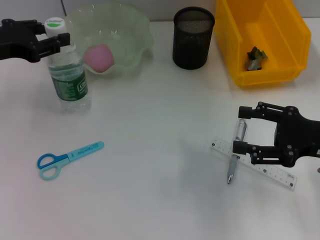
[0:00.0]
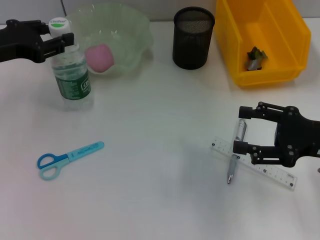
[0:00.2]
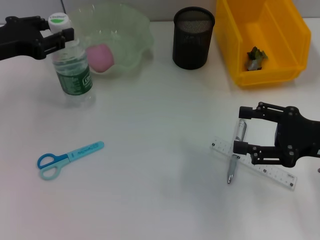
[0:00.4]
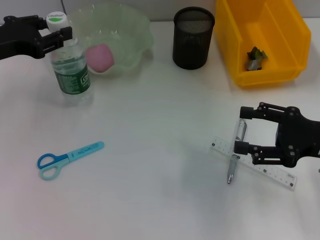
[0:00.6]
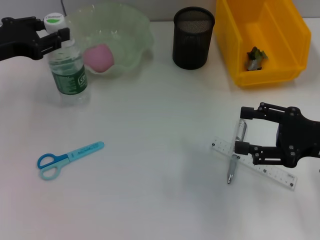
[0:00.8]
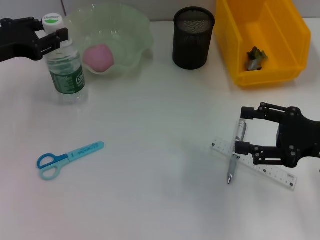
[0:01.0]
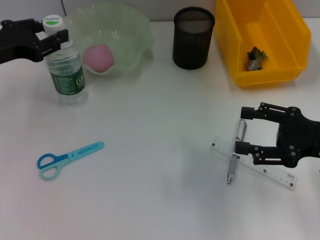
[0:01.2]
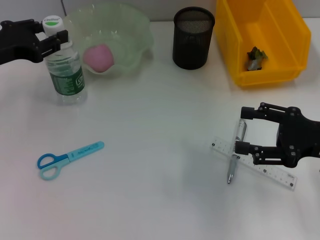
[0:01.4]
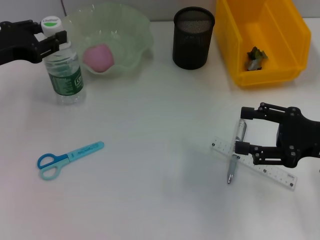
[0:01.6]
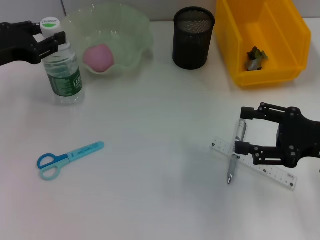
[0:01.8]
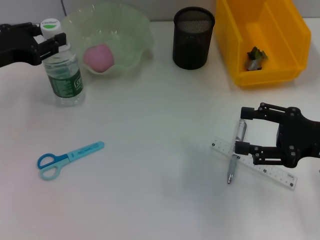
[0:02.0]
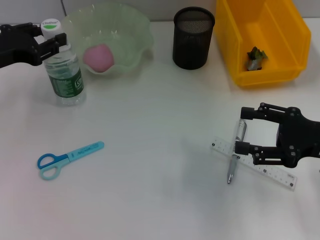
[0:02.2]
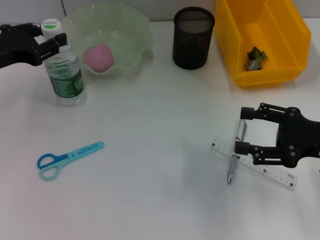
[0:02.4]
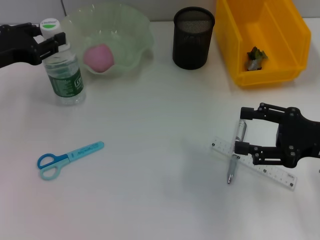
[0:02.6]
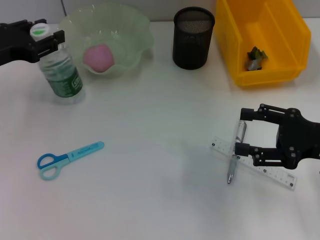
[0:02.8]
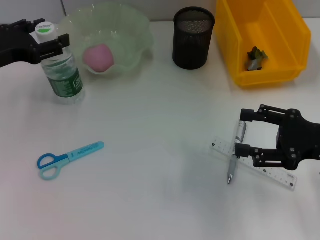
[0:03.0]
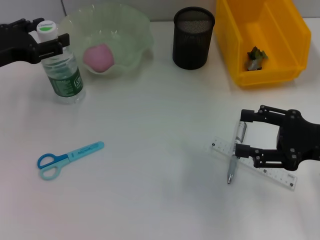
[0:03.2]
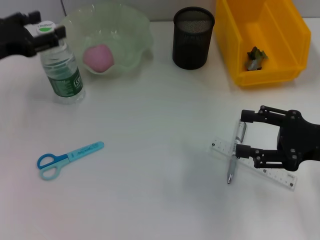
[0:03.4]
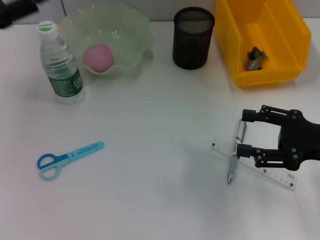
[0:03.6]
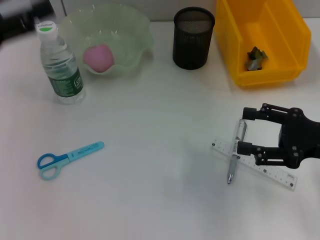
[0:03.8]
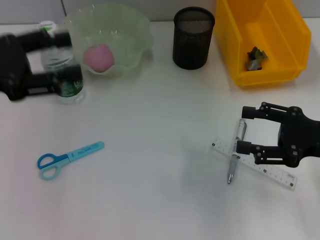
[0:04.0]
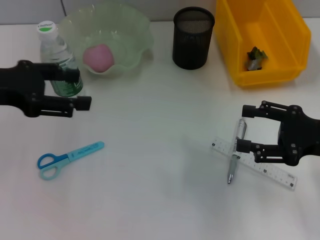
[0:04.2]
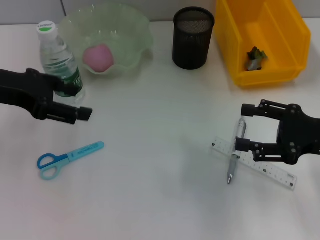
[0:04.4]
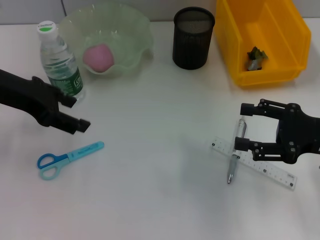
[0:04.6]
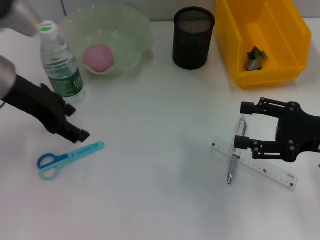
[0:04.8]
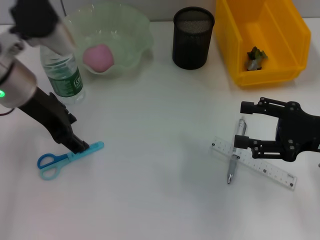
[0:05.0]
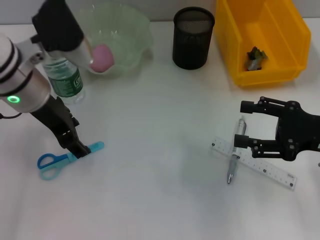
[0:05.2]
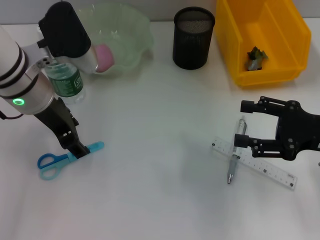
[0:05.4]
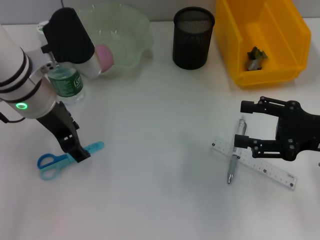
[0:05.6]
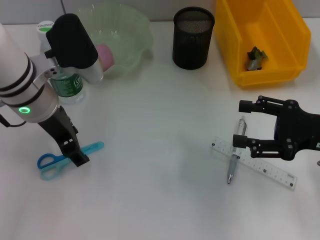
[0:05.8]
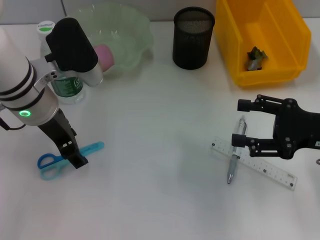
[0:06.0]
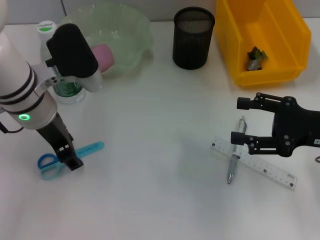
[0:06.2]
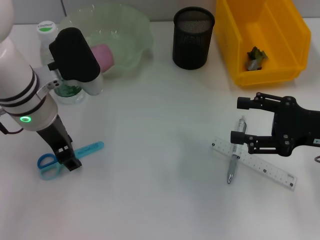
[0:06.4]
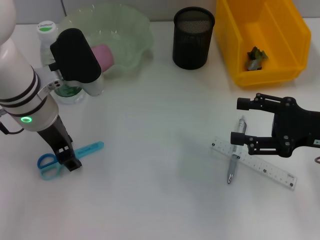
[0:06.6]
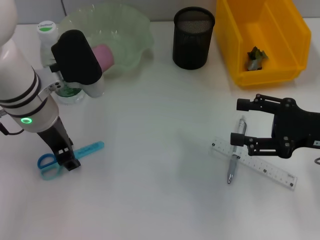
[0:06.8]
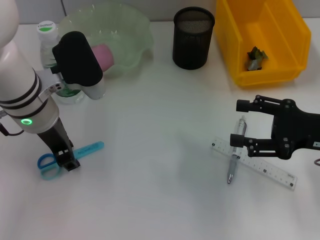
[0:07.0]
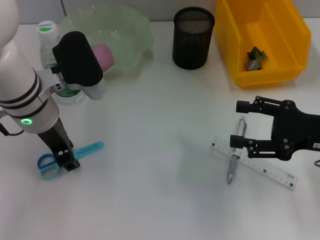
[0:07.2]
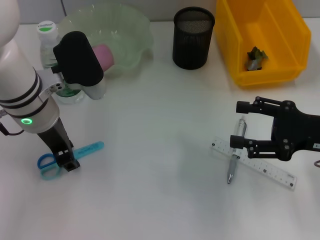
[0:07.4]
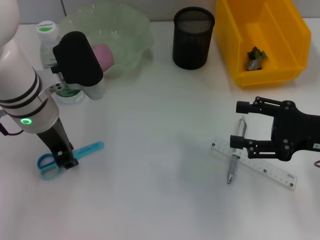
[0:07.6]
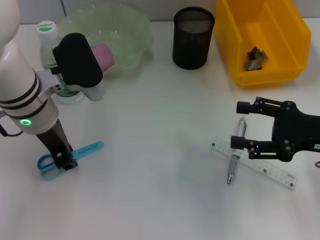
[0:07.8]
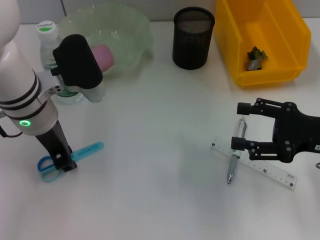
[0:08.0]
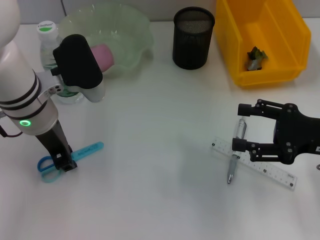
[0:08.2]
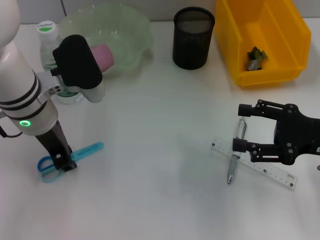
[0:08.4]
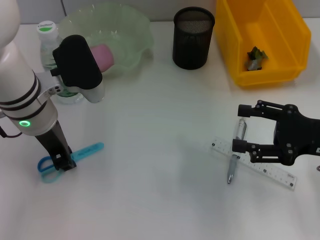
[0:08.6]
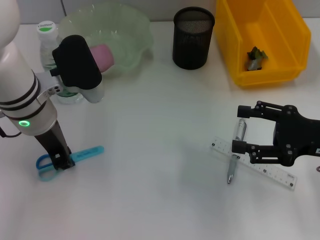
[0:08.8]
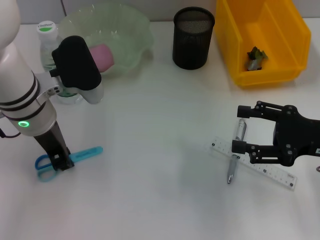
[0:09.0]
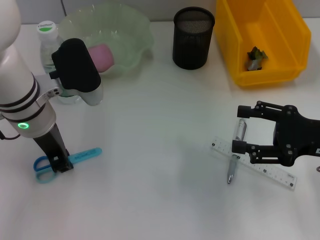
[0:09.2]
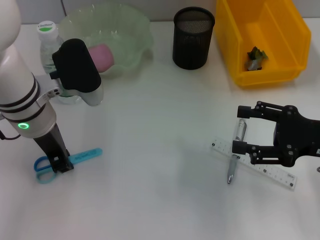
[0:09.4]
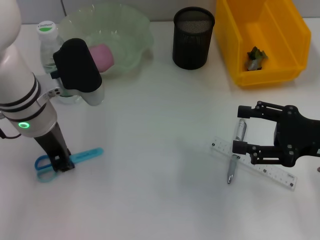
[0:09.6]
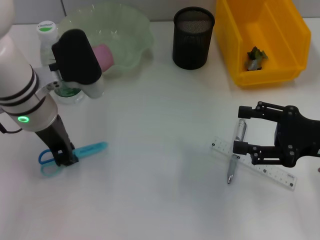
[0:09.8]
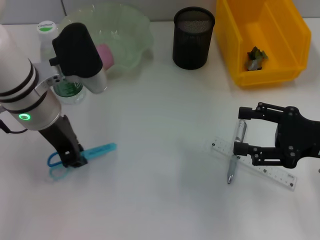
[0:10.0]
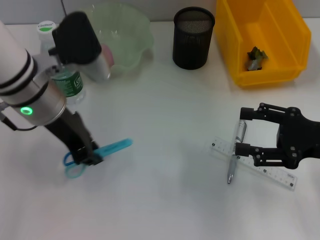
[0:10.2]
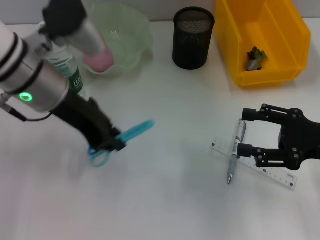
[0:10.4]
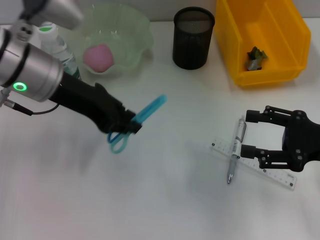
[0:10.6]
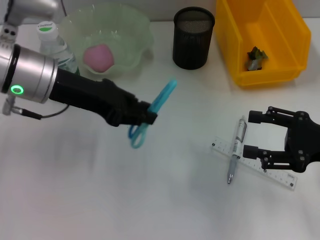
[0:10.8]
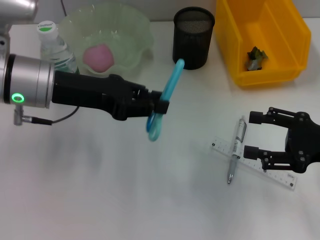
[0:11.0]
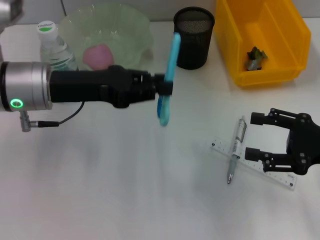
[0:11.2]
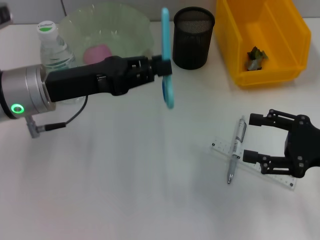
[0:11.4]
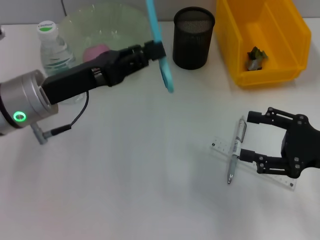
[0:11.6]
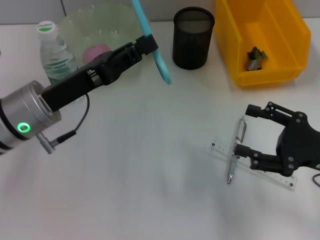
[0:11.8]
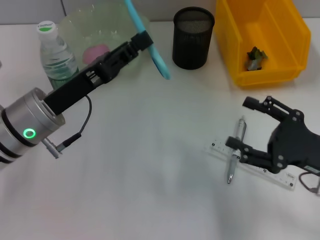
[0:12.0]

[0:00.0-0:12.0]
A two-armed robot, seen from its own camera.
Step, 0:00.0 to 0:03.4: Place the water bottle on the table with the left hand.
Step, 0:03.6 to 0:09.4: Grab the blue scissors with the left hand.
0:00.0 to 0:01.6: There are only small adjustments of the grippers.
0:01.6 to 0:03.0: Both grippers stay about where they are.
0:03.0 to 0:04.4: The left gripper is displaced upward by about 5 cm.
0:04.4 to 0:06.0: The left gripper moves to the right, some 10 cm.
0:06.0 to 0:07.6: The left gripper closes.
0:07.6 to 0:09.0: Both grippers stay about where they are.
0:09.0 to 0:10.4: The left gripper travels upward by approximately 5 cm.
0:10.4 to 0:12.0: The left gripper shifts some 10 cm downward. The right gripper moves about 5 cm.

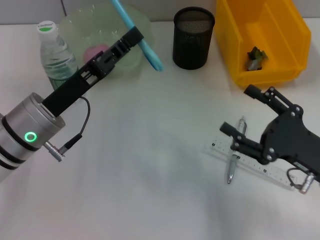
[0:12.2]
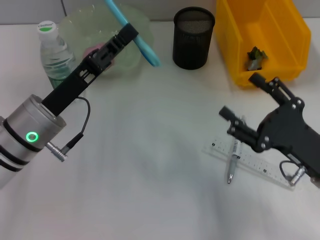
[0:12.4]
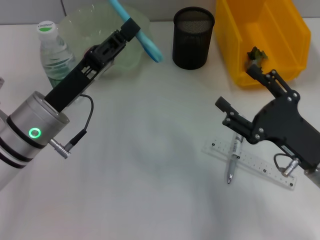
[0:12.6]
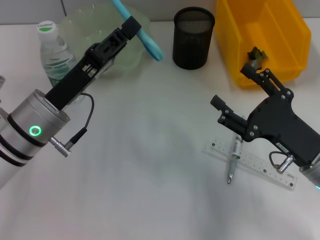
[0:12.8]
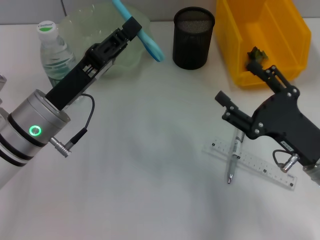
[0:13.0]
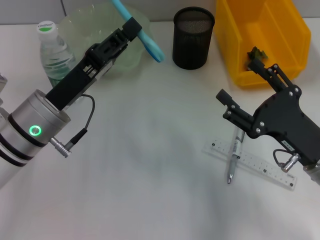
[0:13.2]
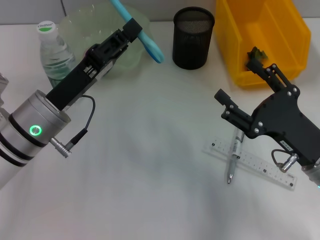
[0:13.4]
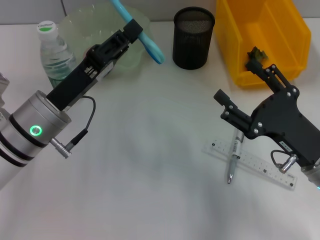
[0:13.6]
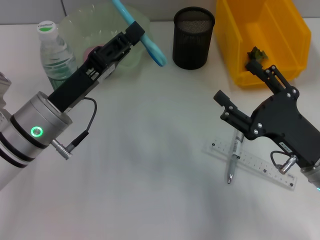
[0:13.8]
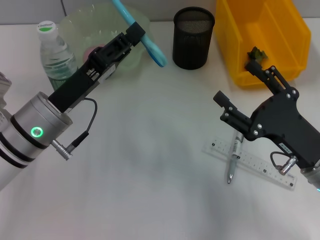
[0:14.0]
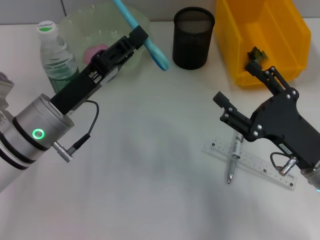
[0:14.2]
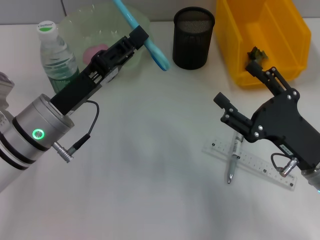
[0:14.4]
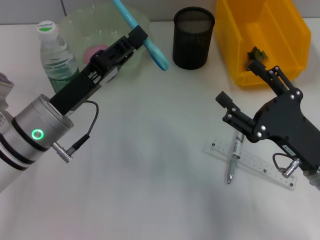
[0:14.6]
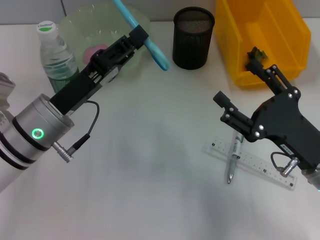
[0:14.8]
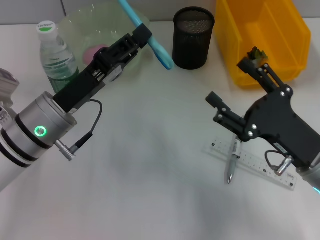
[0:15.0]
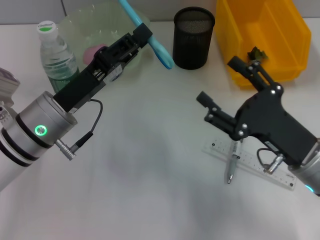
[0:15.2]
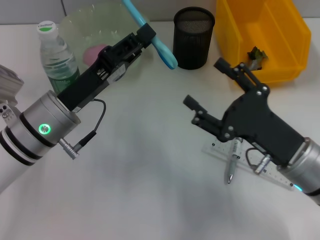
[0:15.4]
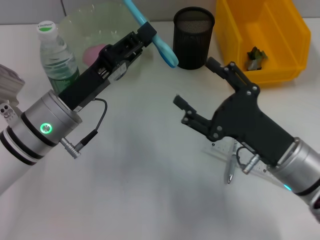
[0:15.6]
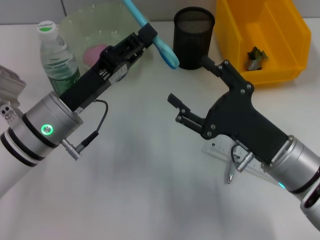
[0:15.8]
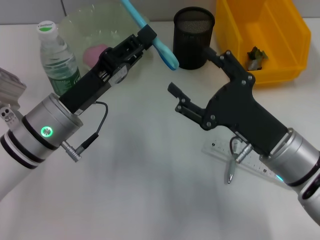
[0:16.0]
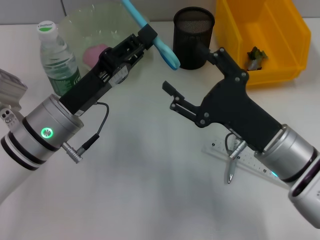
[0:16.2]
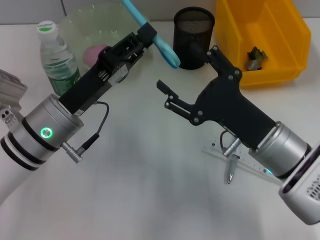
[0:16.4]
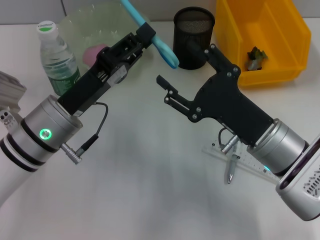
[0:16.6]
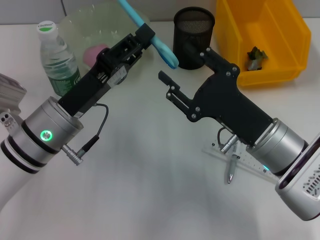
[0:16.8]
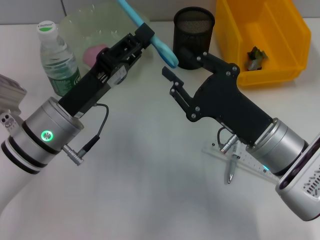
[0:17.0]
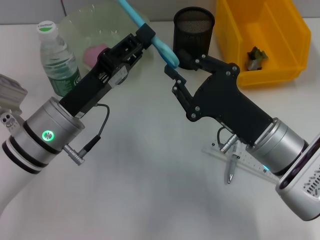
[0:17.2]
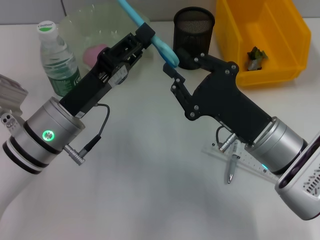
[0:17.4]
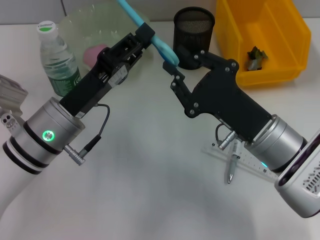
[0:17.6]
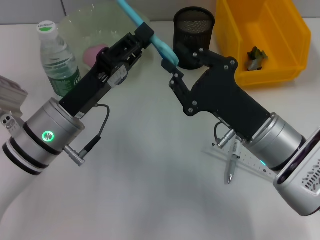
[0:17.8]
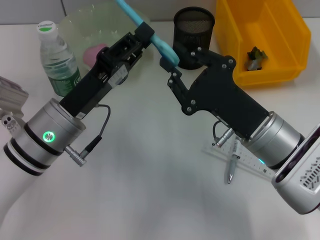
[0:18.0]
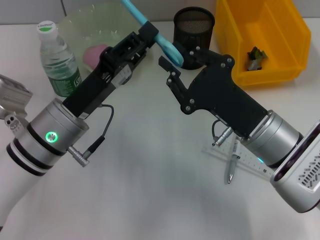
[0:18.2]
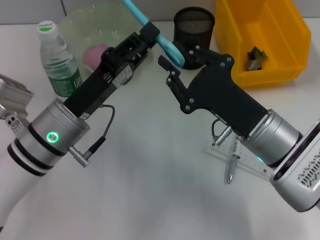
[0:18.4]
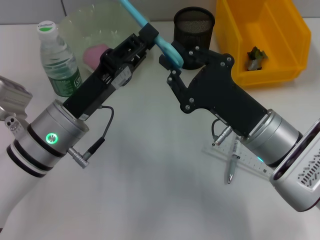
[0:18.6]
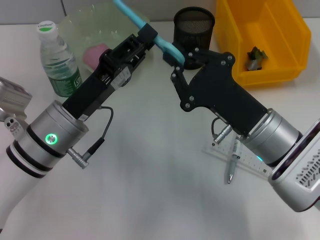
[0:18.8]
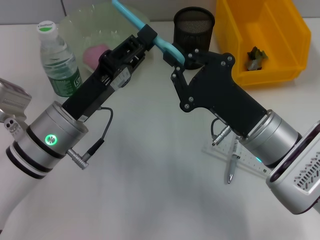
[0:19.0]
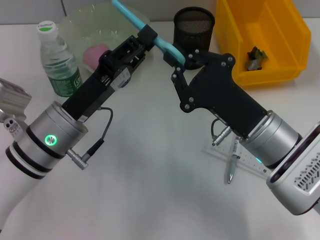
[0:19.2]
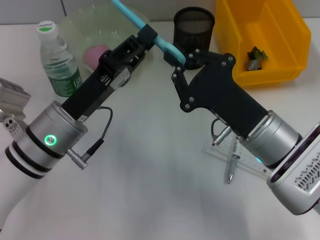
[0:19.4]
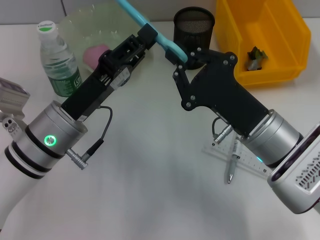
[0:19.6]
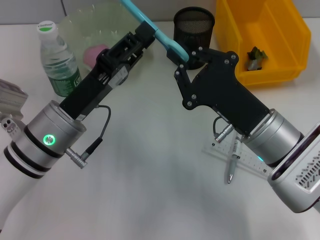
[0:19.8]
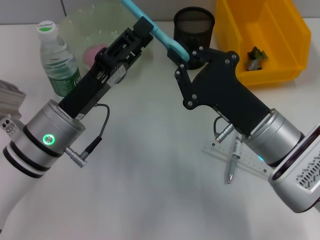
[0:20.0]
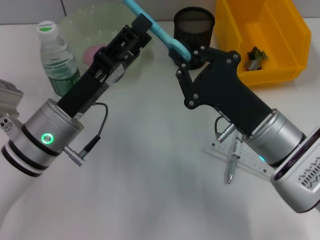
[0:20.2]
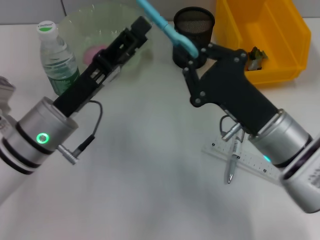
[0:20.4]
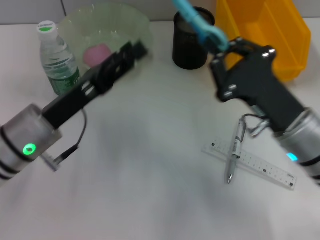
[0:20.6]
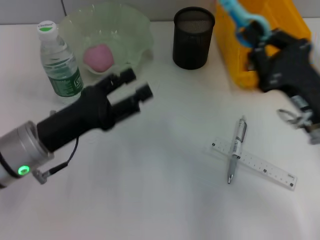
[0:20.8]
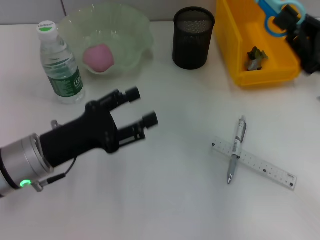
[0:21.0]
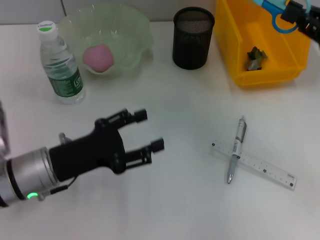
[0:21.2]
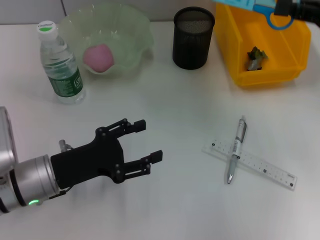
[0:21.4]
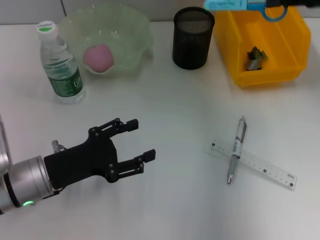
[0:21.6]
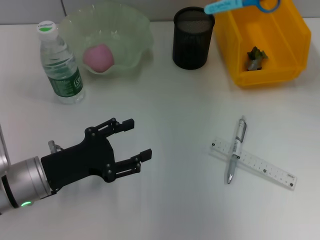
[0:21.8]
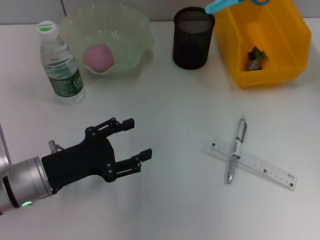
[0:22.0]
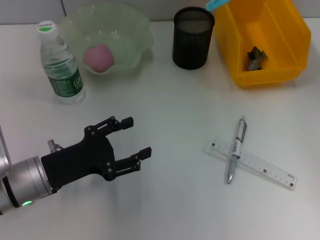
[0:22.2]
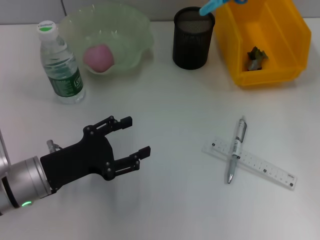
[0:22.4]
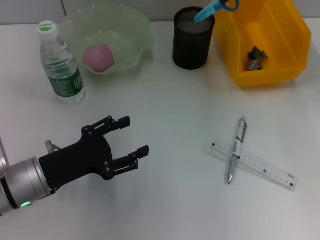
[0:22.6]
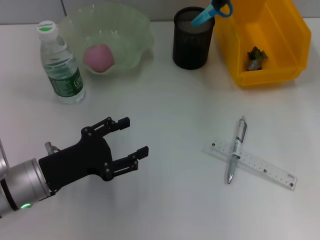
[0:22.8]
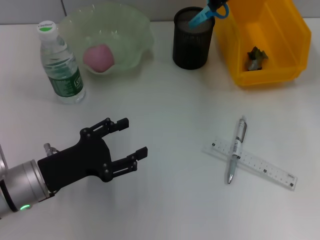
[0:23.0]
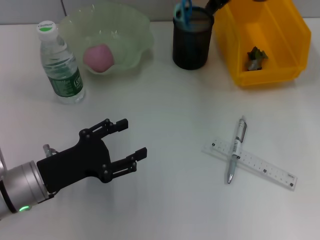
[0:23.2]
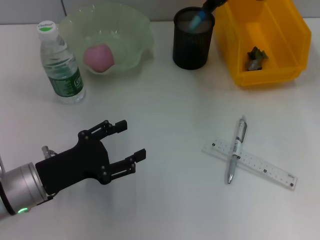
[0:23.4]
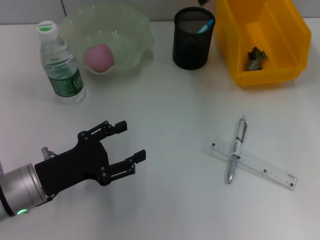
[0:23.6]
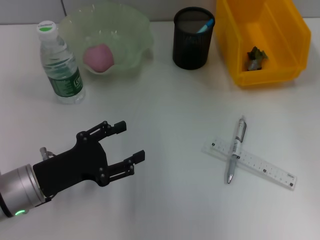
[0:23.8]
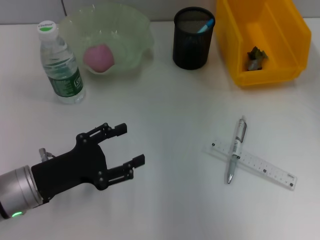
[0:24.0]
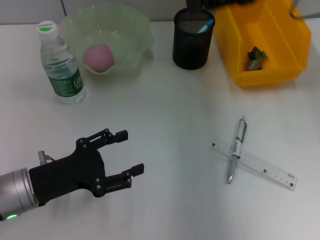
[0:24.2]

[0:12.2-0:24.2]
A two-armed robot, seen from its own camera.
Step, 0:12.2 to 0:20.4: Pass the blue scissors from the left hand to the right hand.
Step, 0:20.6 to 0:23.4: Place the blue scissors into the pen holder with the right hand.
0:12.2 to 0:15.2: The grippers make only small movements.
0:15.2 to 0:16.6: The right gripper shifts some 5 cm to the left.
0:16.6 to 0:18.2: The right gripper closes.
0:18.2 to 0:19.8: Neither gripper changes place.
0:19.8 to 0:21.2: The right gripper goes some 20 cm to the right and upward, while the left gripper moves about 5 cm, and opens its fingers.
0:21.2 to 0:22.6: The right gripper moves to the left, forward and upward, approximately 25 cm.
0:22.6 to 0:24.2: The right gripper moves backward and to the right, some 10 cm, and opens.
